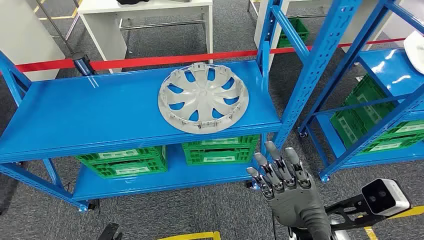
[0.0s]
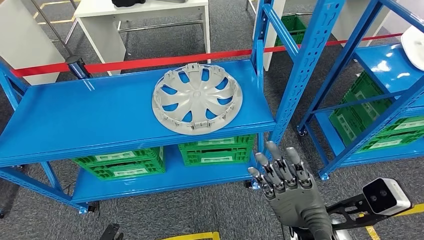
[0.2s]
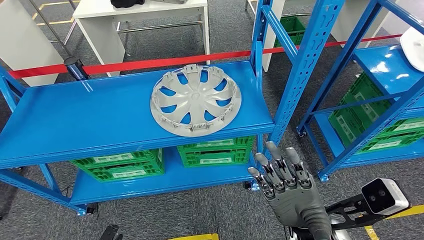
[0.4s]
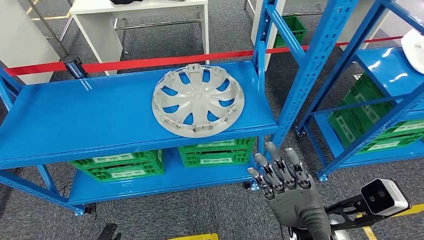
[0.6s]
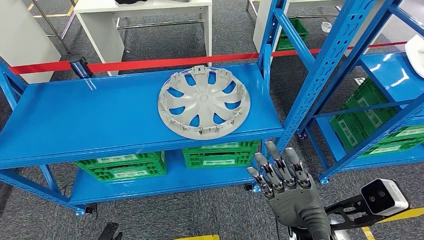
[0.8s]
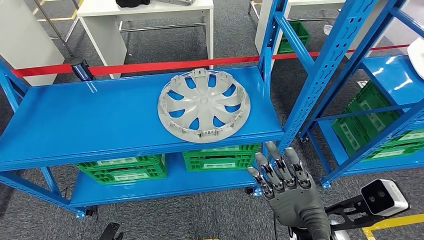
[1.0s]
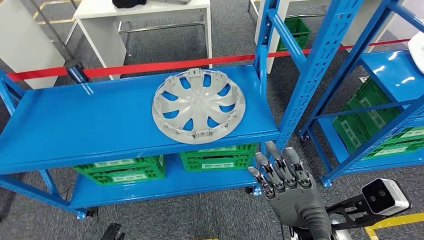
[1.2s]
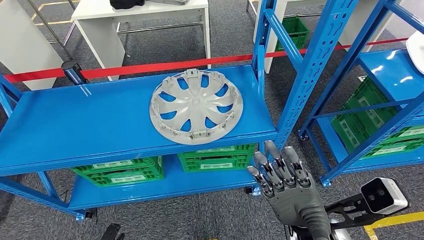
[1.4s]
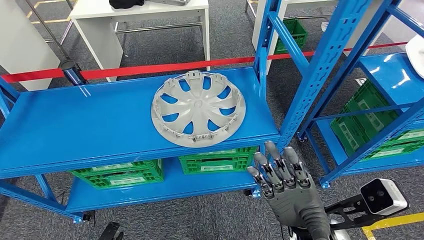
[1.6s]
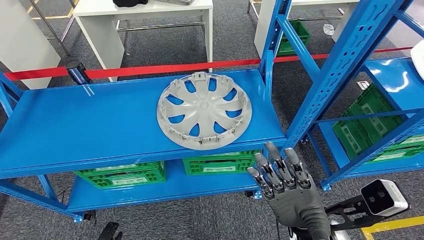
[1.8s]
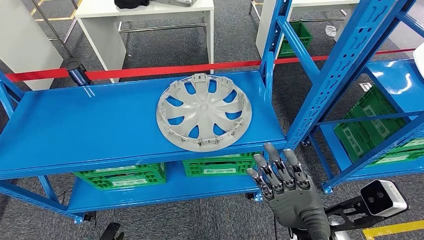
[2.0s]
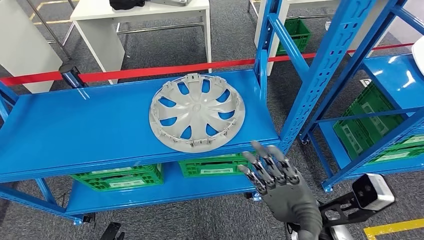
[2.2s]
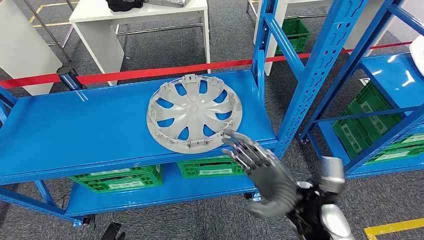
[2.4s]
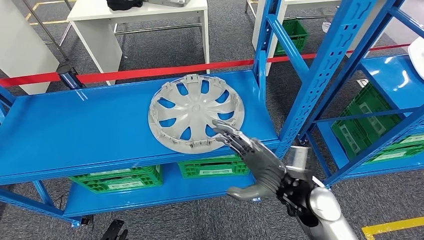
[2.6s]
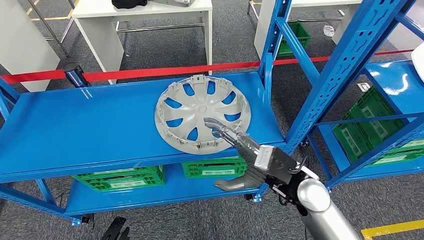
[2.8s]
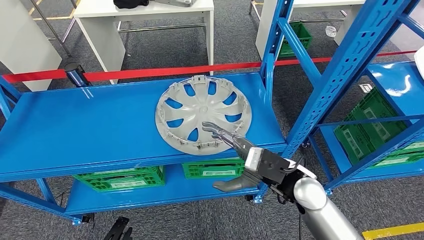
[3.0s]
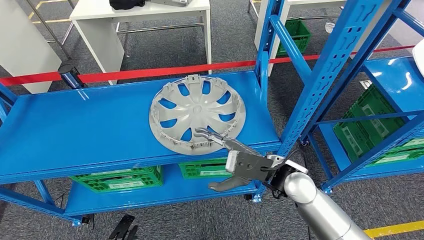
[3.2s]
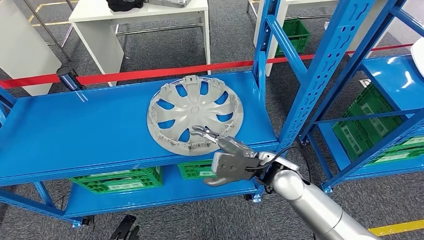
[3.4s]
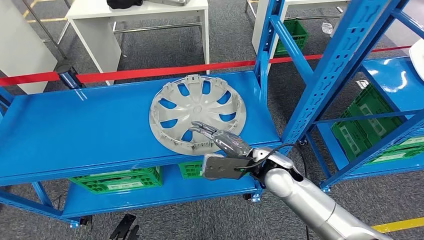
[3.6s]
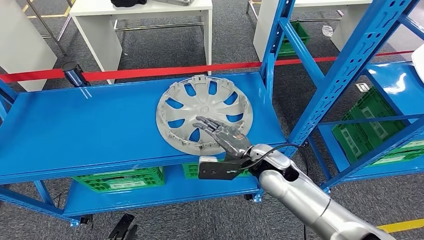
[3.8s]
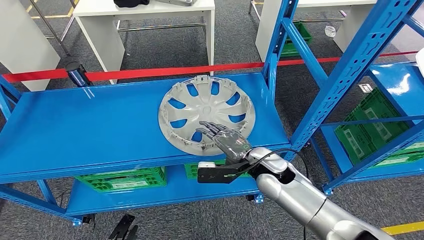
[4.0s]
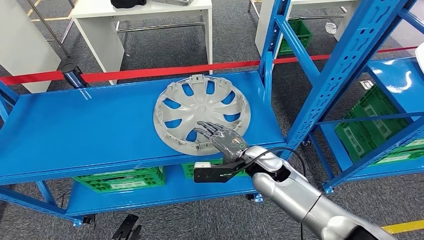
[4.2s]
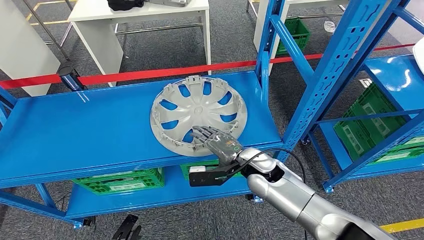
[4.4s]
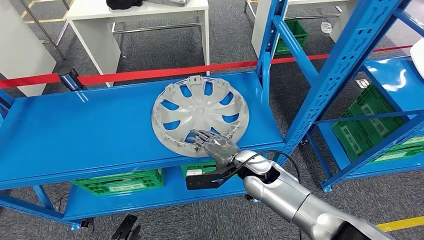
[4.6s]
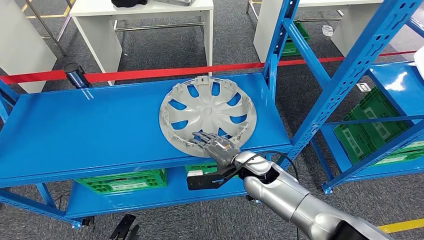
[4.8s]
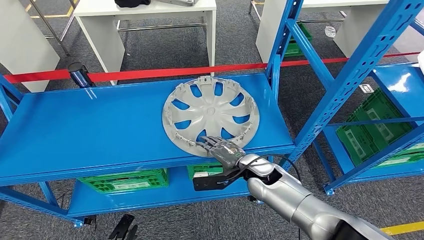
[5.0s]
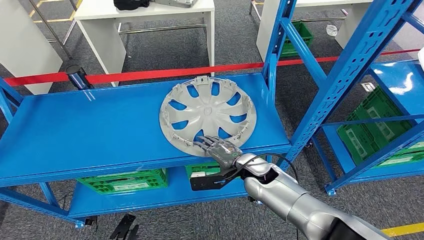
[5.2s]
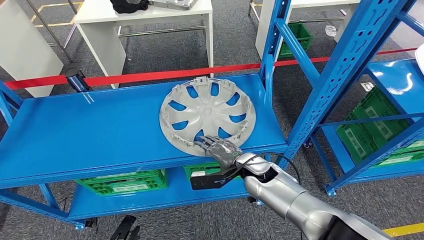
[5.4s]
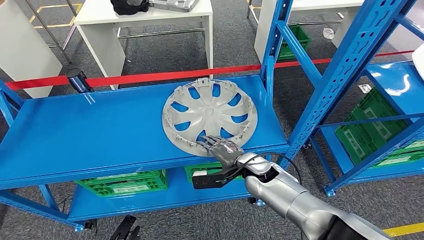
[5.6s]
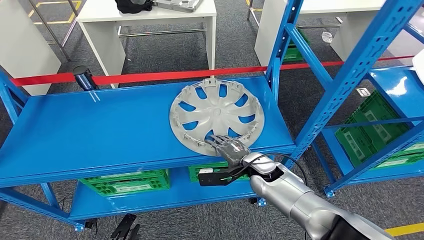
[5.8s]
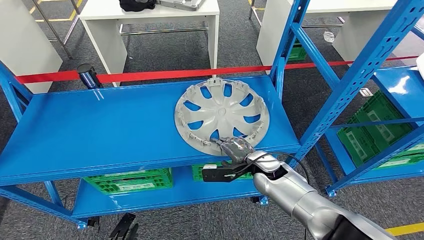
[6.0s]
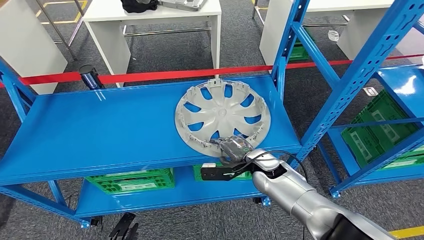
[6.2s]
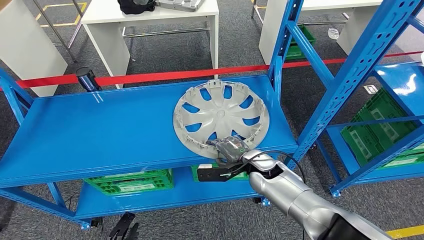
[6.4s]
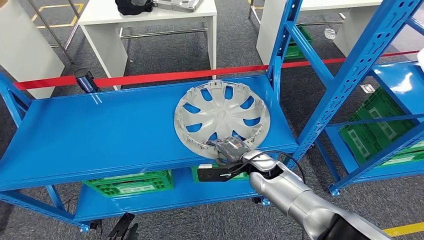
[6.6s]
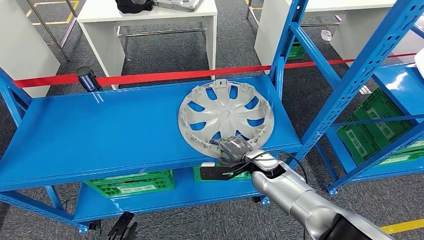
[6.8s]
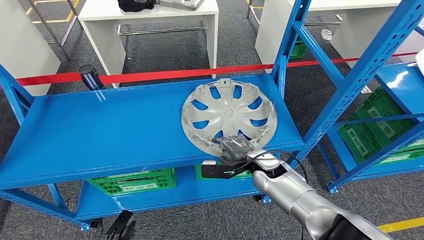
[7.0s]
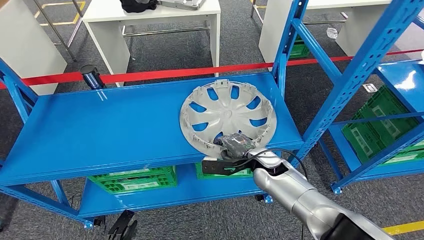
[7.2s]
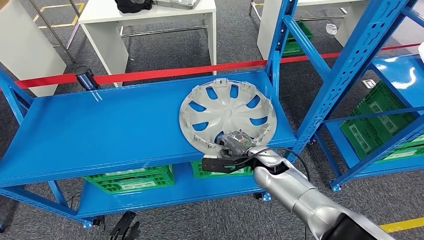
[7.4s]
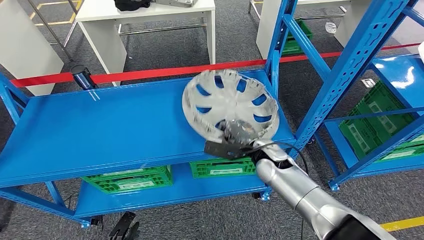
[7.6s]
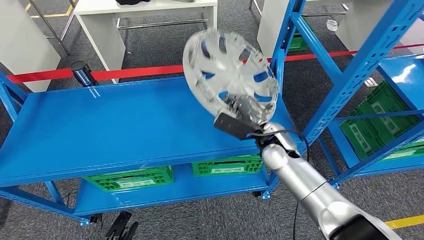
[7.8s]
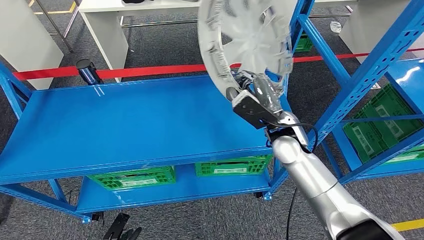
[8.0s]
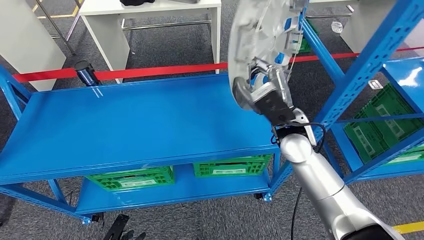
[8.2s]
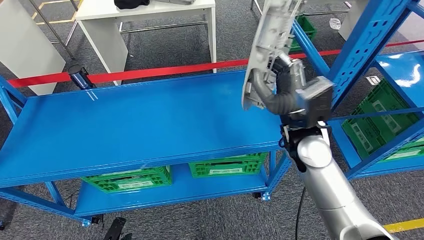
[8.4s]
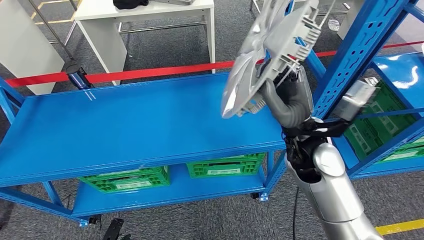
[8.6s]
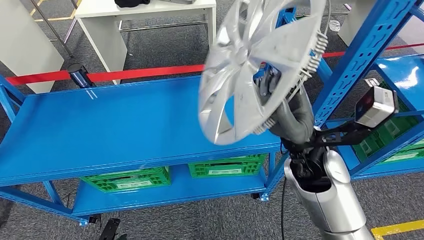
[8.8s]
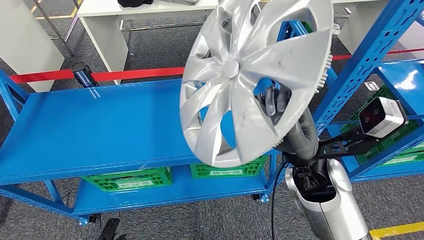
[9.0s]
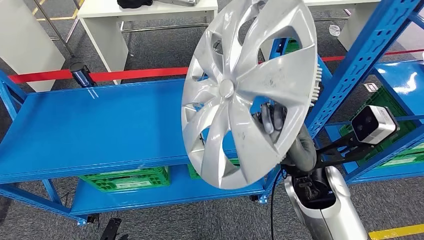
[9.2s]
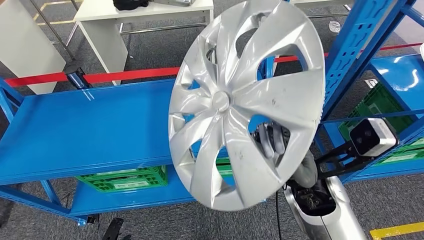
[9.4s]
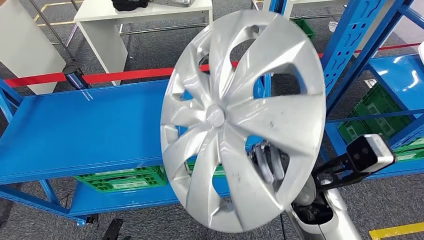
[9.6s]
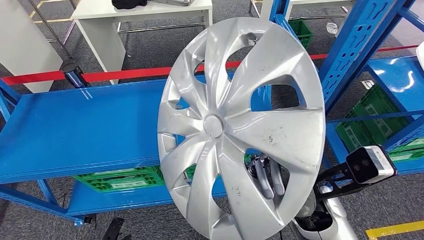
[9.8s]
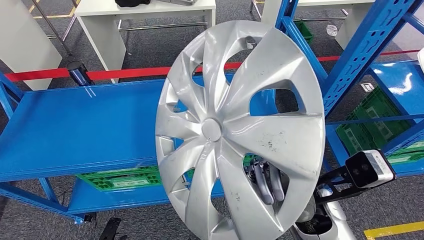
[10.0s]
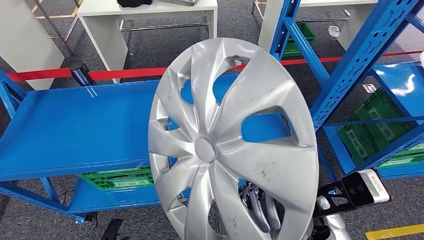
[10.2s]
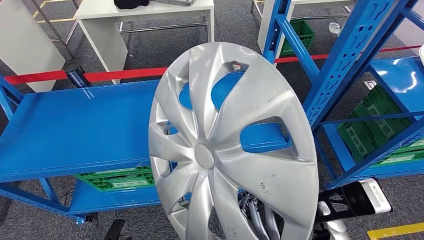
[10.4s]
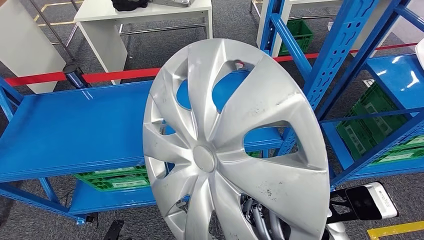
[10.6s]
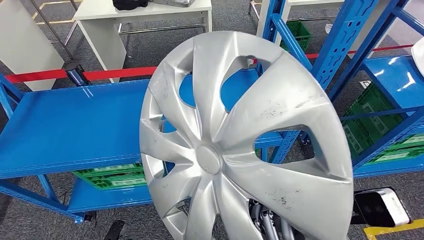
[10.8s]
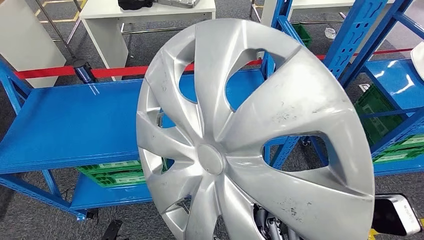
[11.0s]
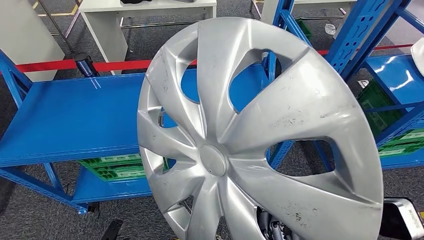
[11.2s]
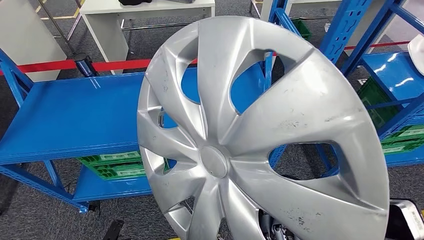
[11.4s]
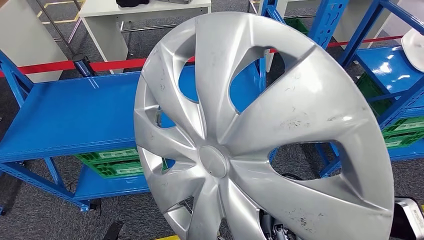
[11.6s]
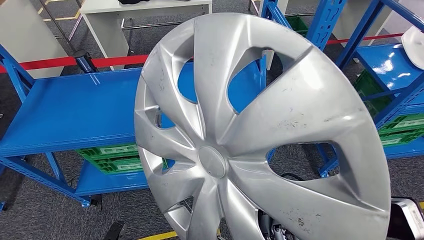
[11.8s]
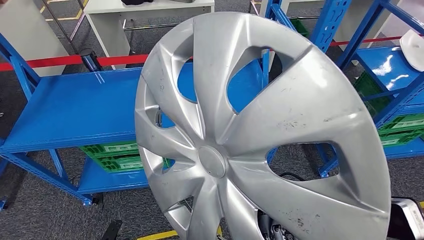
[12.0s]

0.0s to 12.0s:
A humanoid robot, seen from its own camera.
Step, 0.0s to 9.2s: Pick up the small component from the shelf.

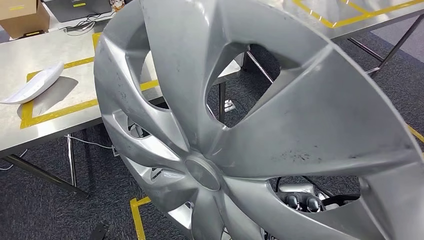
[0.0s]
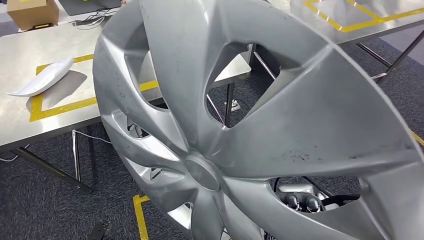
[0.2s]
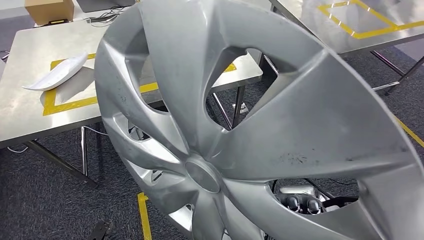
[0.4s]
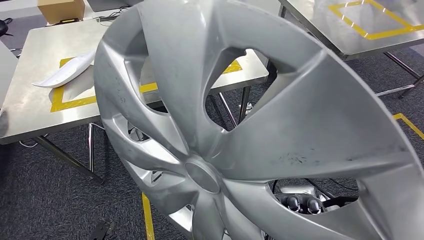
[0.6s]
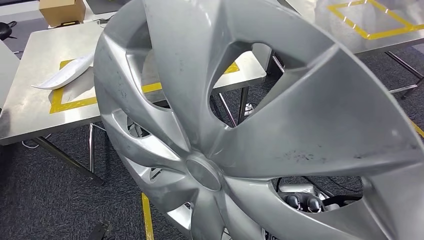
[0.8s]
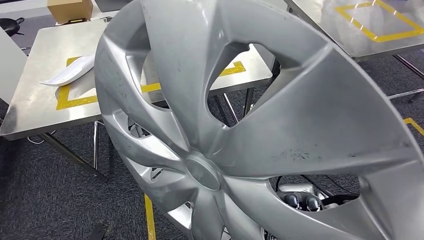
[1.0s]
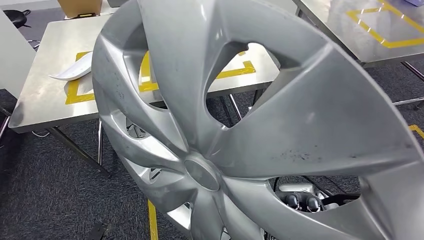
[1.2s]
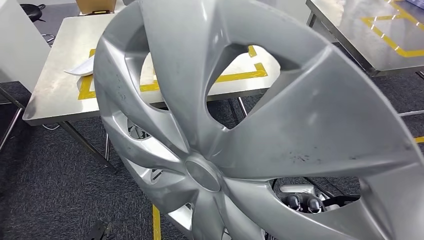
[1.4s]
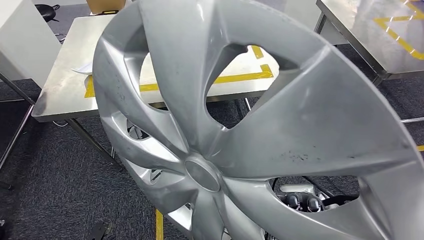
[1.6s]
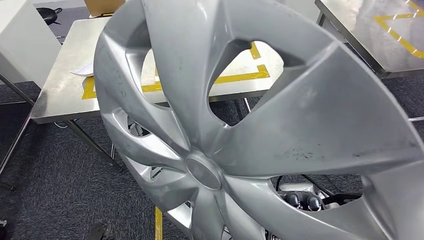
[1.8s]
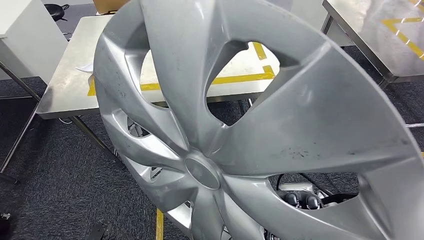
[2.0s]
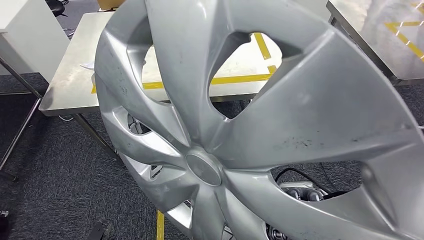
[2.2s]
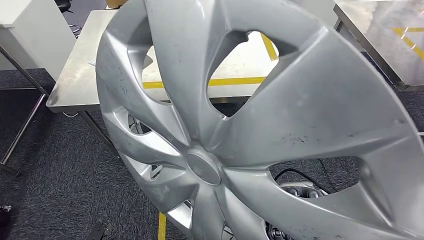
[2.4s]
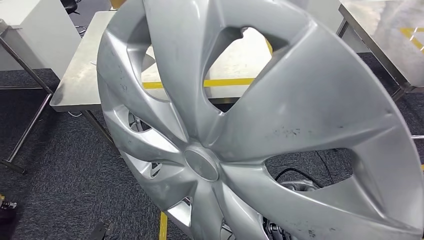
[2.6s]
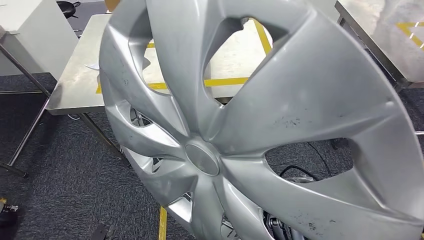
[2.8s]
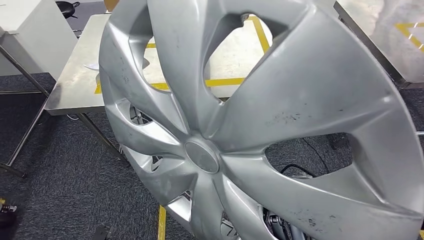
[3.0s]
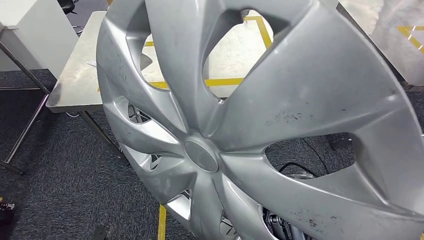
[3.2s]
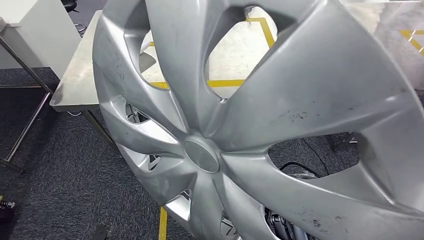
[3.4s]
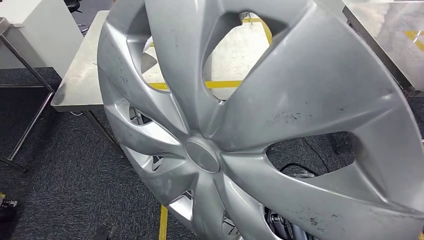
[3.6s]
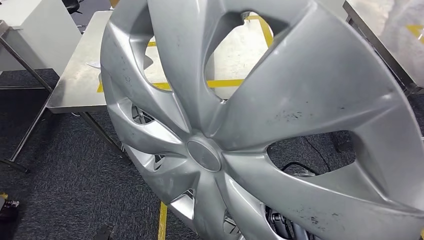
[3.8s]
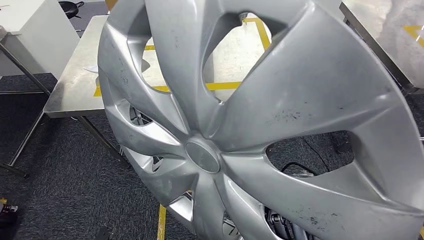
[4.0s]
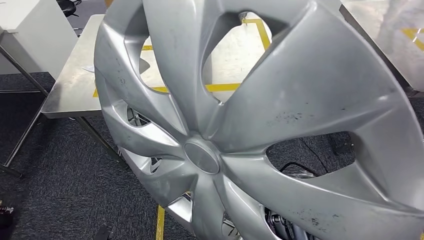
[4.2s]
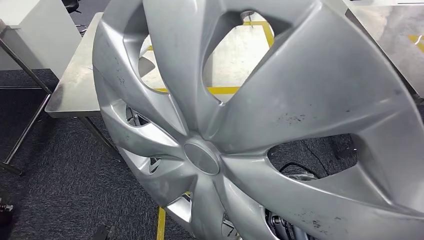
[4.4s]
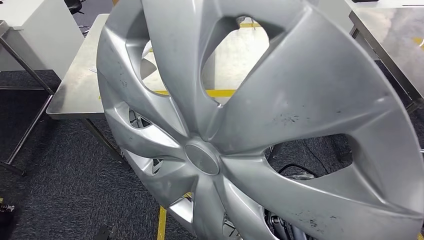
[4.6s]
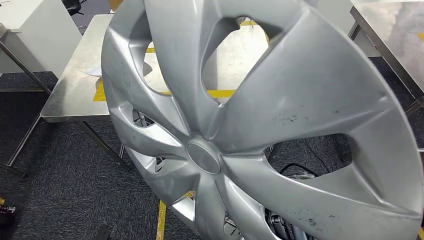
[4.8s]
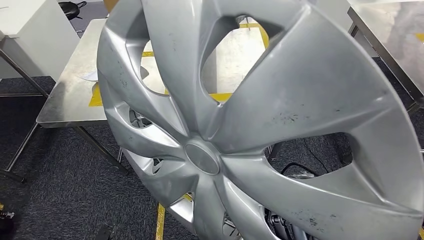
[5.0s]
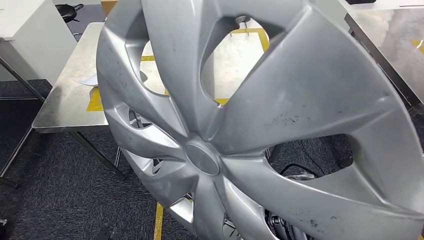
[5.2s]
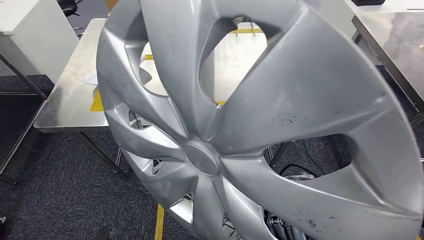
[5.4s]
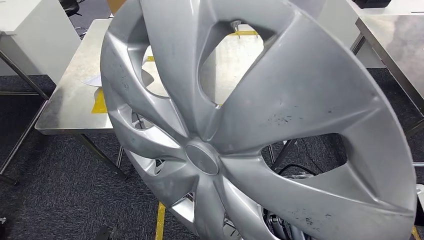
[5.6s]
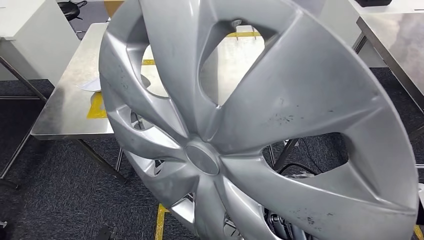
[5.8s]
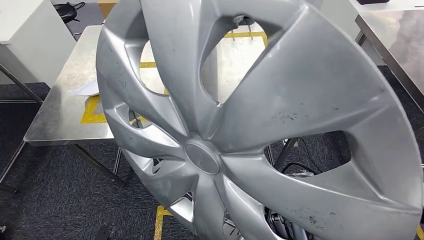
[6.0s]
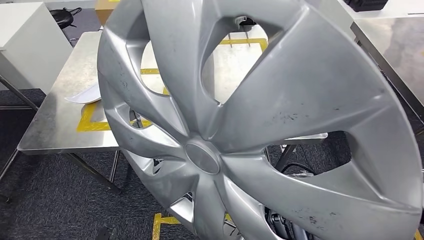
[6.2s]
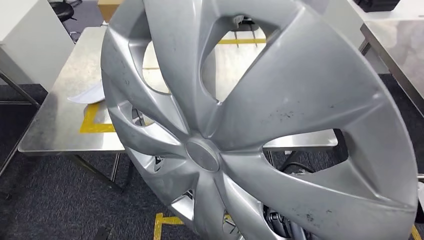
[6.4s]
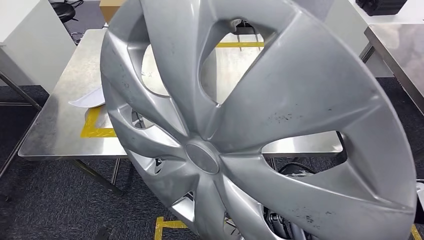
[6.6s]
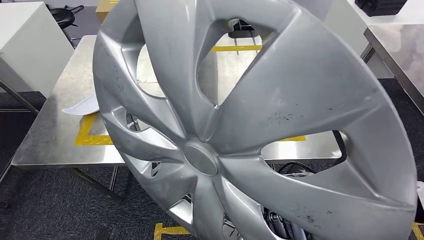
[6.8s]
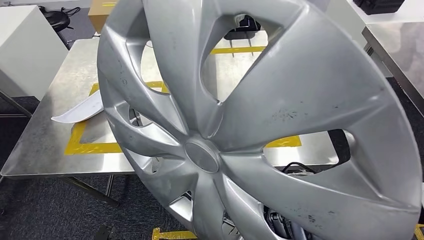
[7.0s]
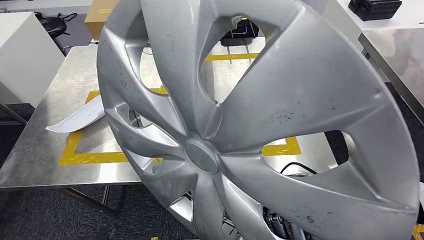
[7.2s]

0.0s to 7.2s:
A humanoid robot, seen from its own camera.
Step, 0.0s to 2.4s: Move the small component to the workbench.
